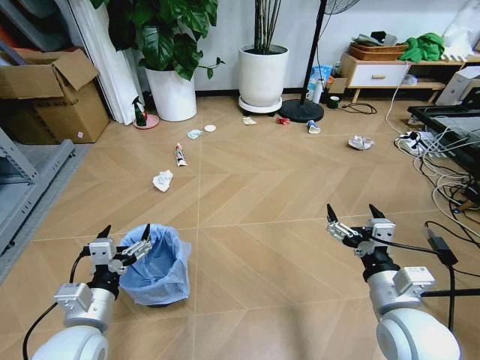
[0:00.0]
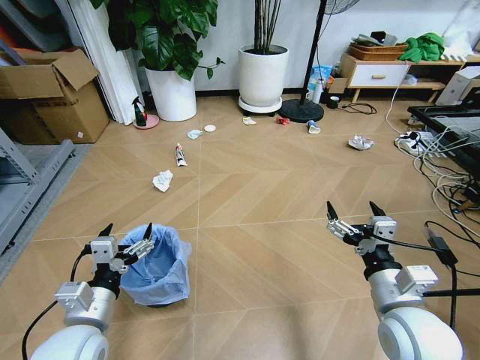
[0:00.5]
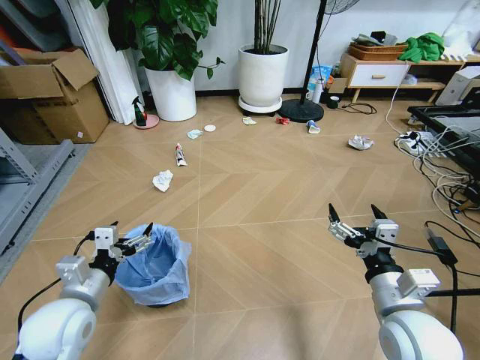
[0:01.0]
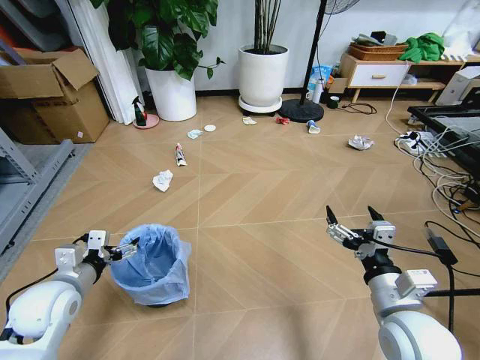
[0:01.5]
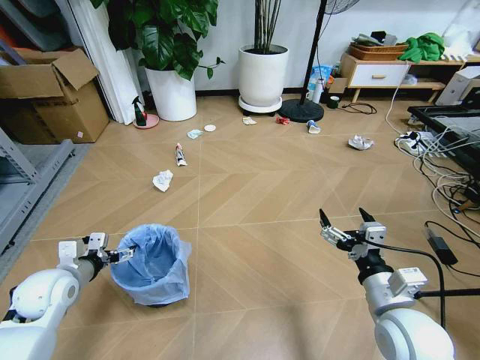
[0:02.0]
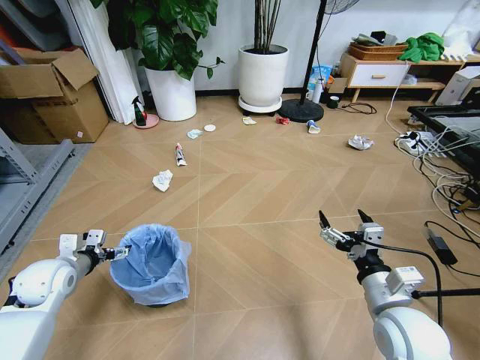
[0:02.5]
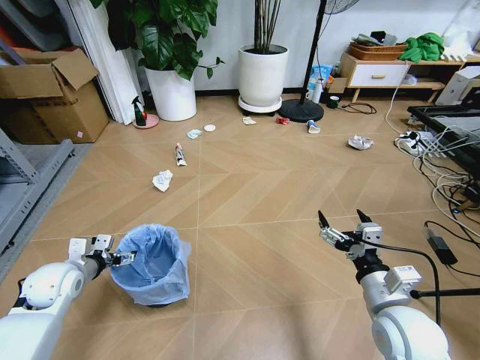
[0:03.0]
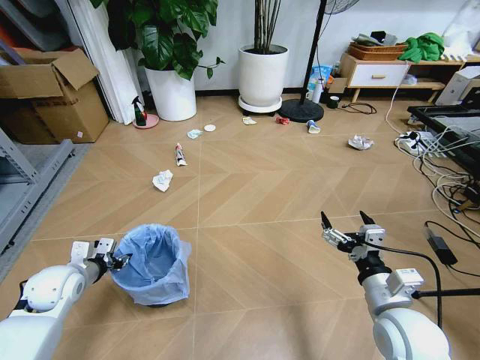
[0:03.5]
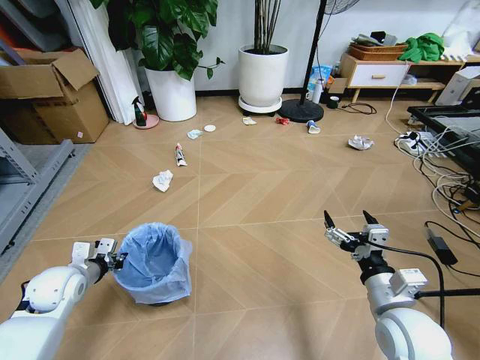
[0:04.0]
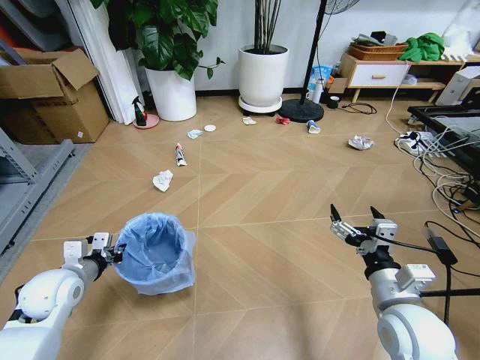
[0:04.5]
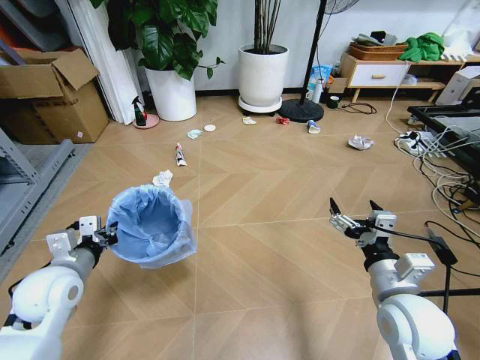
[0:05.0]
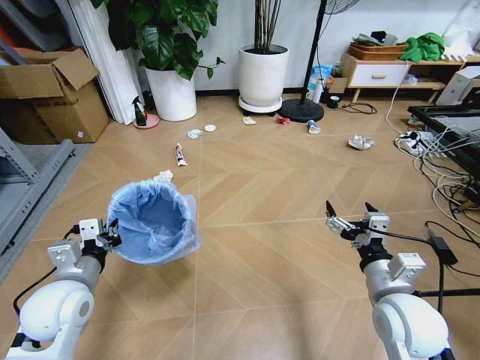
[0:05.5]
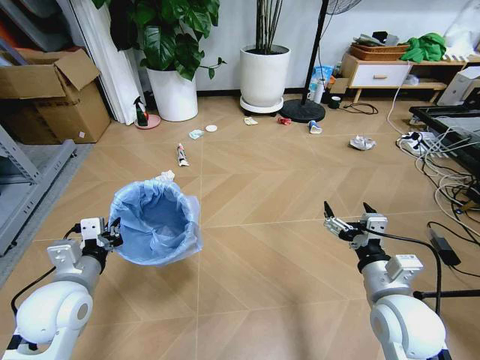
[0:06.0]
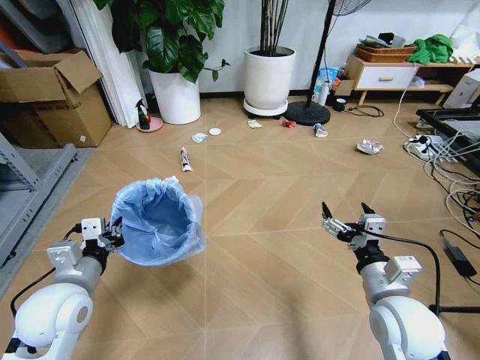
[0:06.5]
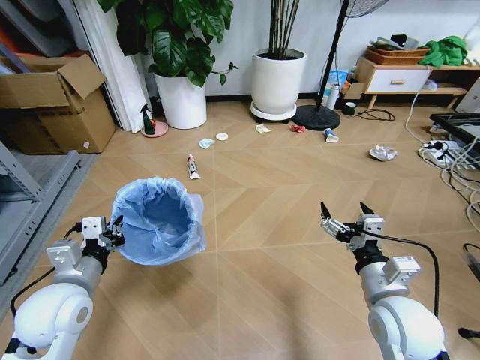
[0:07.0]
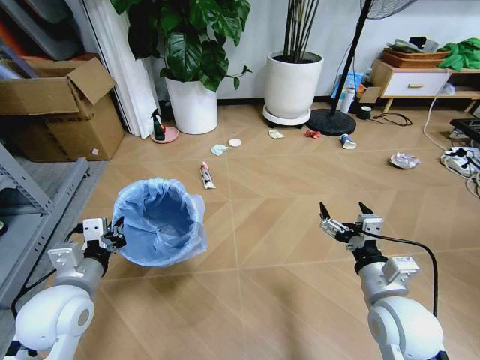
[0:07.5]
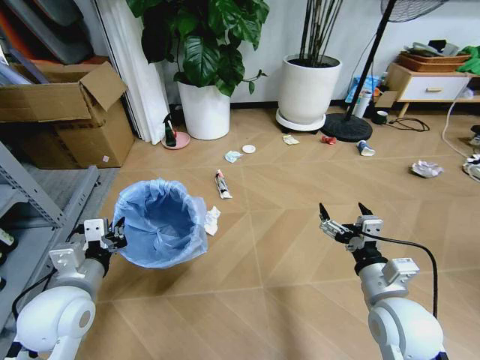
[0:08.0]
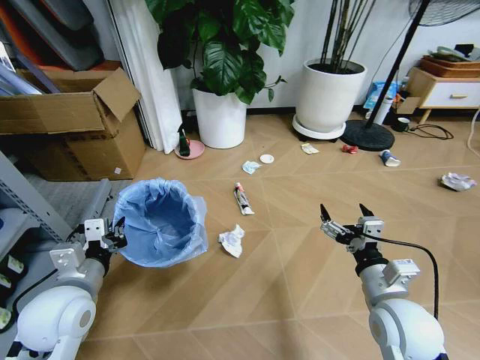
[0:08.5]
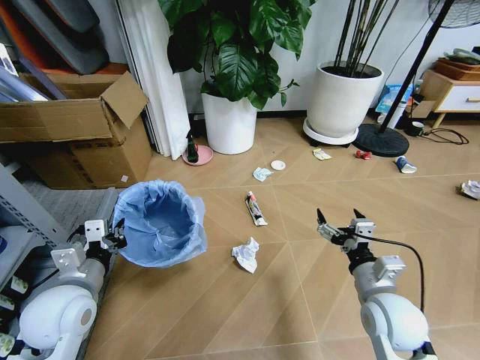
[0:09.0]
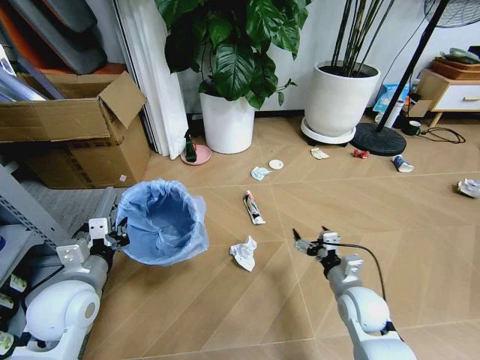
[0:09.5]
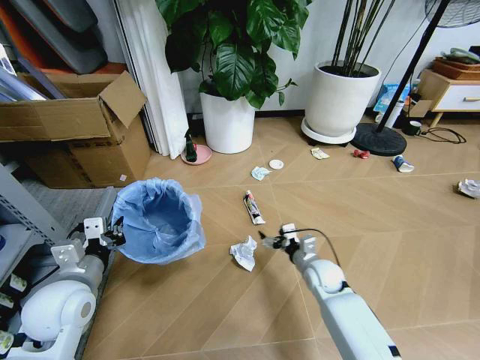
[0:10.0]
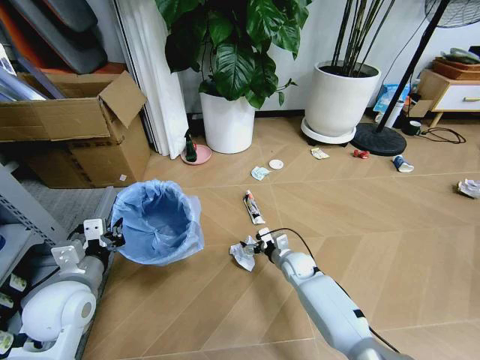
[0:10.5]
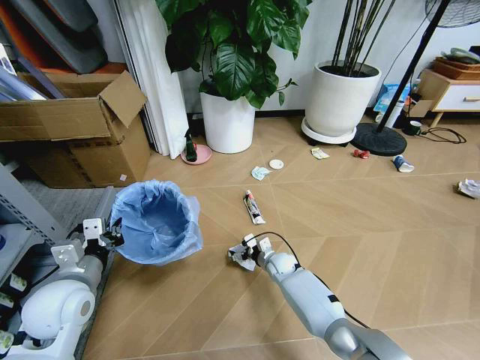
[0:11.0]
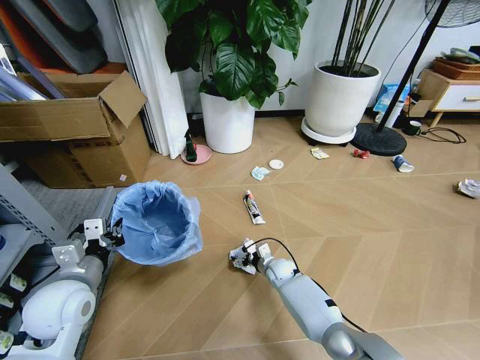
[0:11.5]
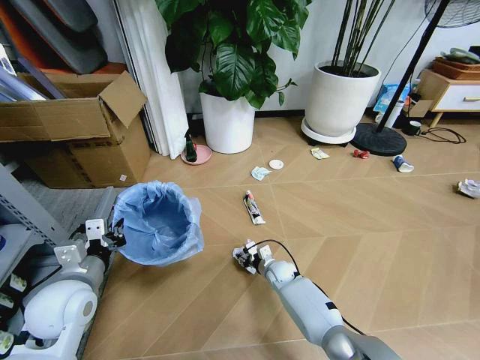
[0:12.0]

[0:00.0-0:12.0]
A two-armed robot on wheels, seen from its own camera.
Task of the whole recording: Pick up the trash bin and place the garbage on the floor into it.
2.0 to 4.0 s: The left gripper closes.
4.0 to 6.0 s: The left gripper moves to the right, upward and backward, roughly 15 cm.
8.0 to 10.0 s: The right gripper travels downward and forward by some 25 cm.
10.0 to 12.0 s: The right gripper shifts some 15 cm downward, to the left and forward, and closes up.

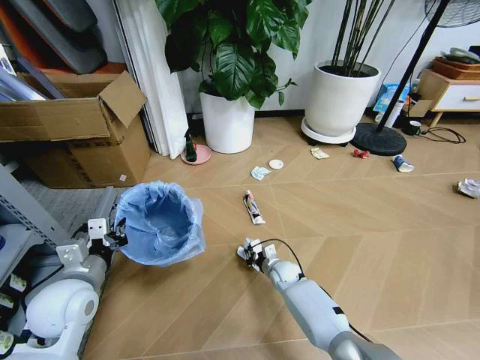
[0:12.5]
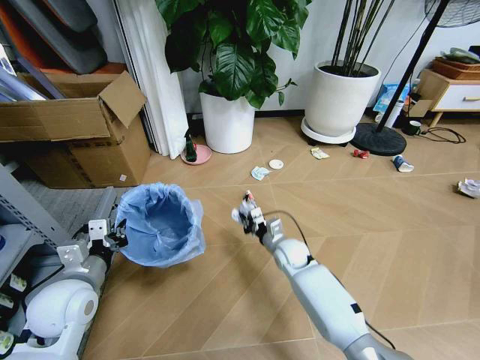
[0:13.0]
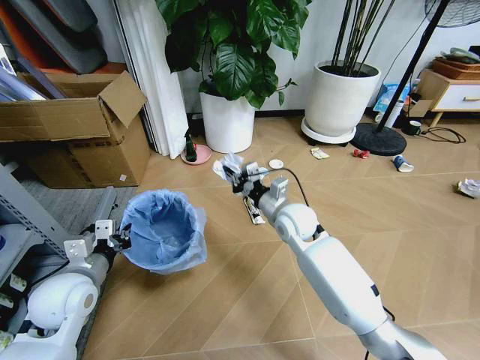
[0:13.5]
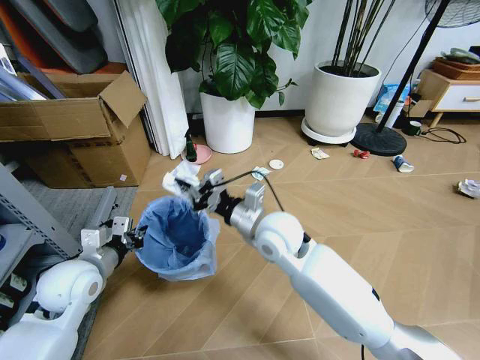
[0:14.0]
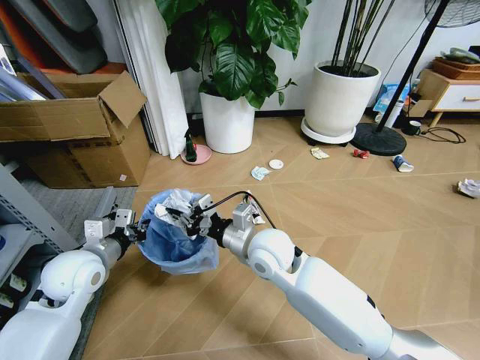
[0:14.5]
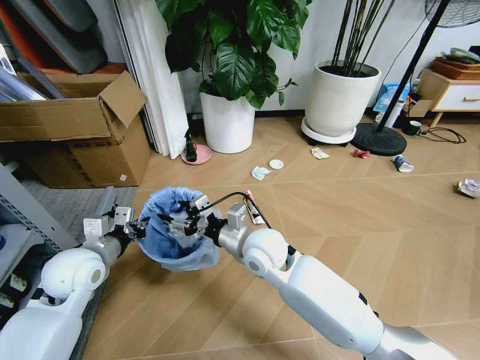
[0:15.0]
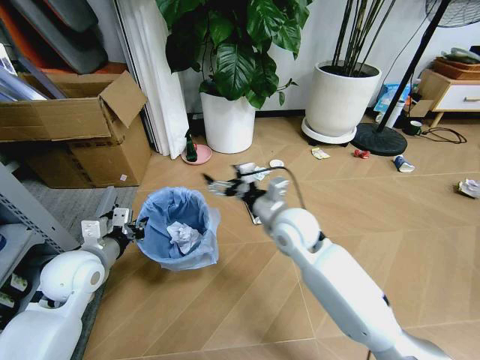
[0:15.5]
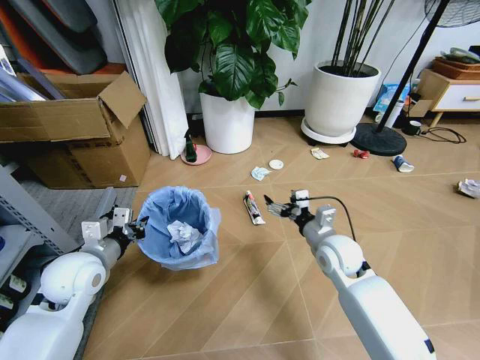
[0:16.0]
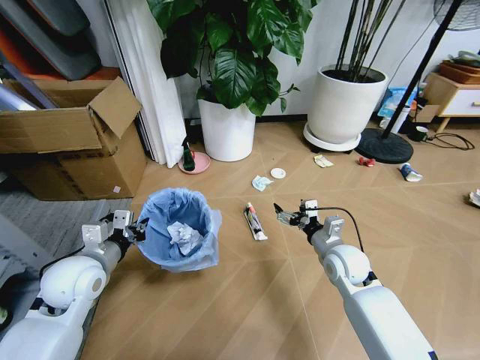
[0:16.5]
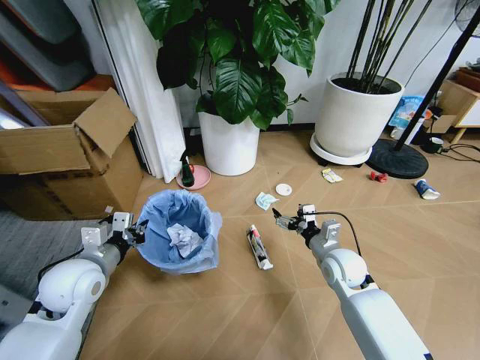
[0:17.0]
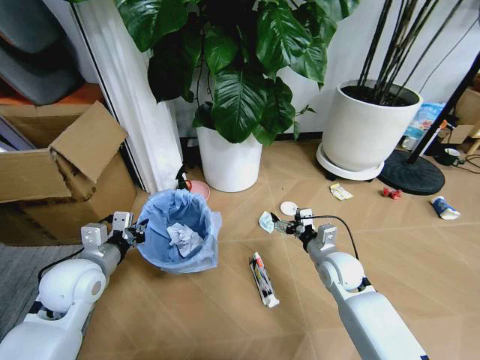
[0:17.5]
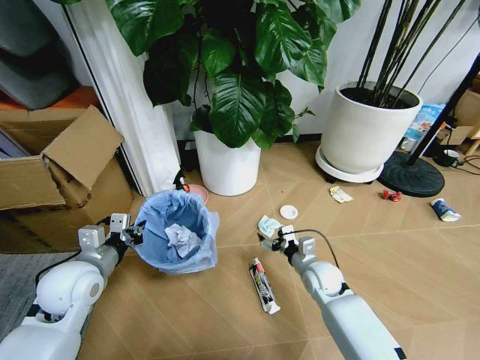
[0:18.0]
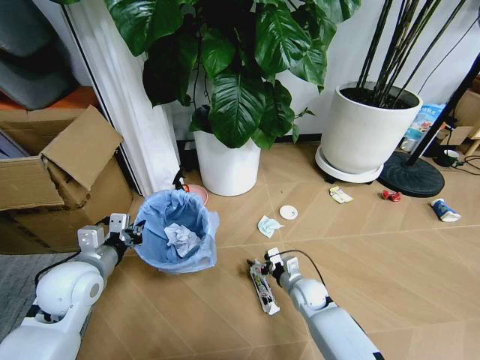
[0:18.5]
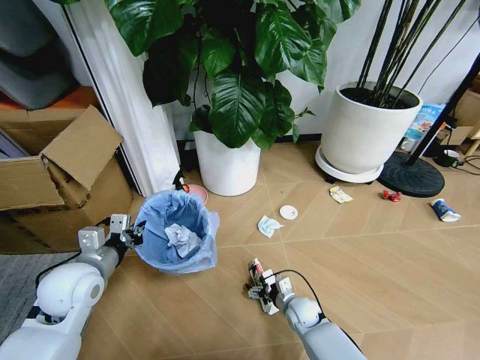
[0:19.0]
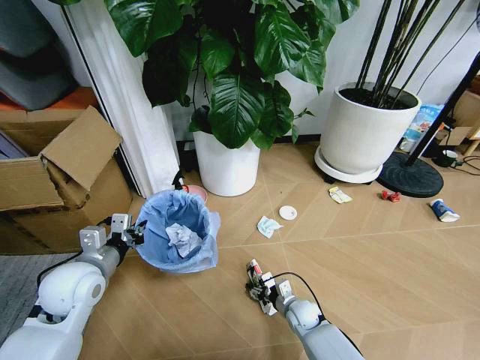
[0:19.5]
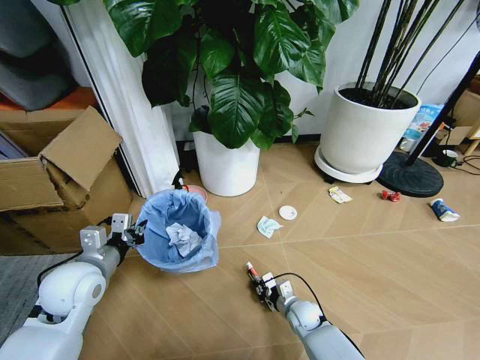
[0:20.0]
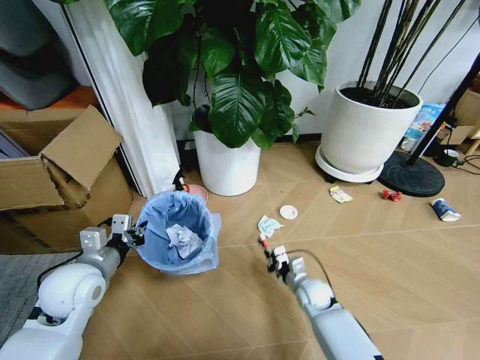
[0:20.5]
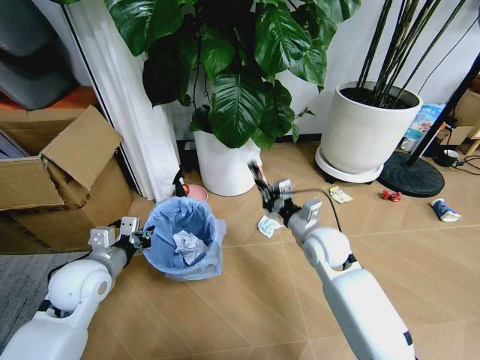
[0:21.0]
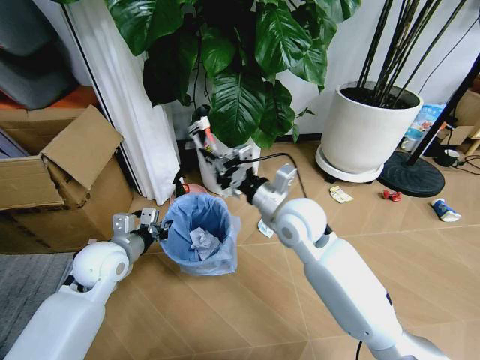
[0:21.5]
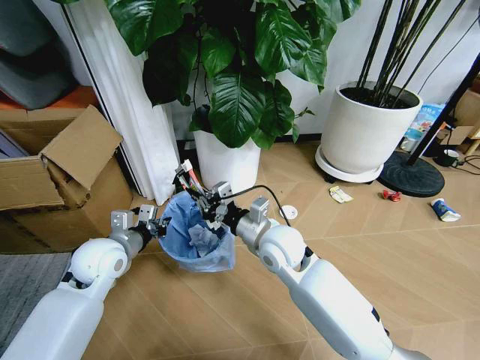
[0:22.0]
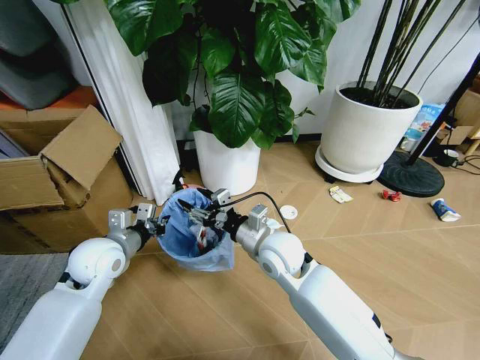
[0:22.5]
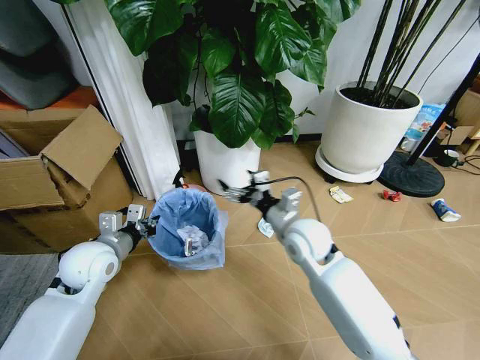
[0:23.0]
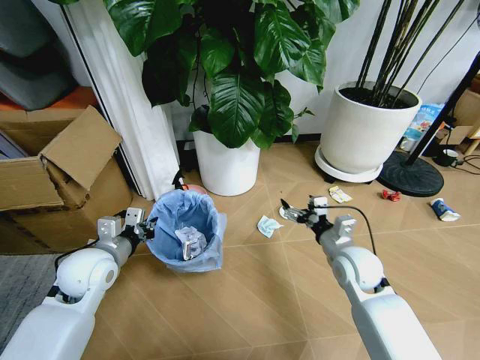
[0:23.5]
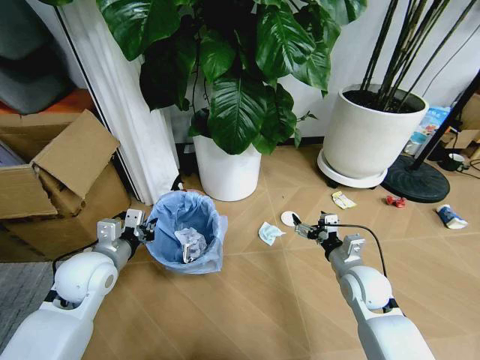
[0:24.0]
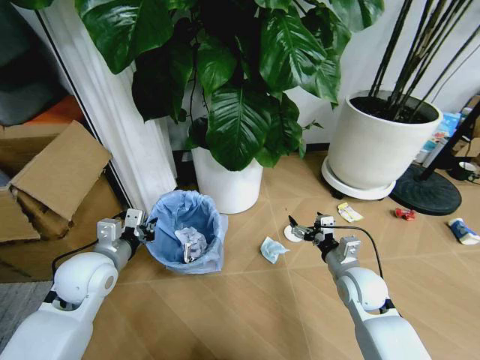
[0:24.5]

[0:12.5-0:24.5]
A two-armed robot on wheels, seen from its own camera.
Task of the whole recording: Pick up the trash bin and place the garbage on the floor into it.
12.5 to 14.5 s: The right gripper goes some 30 cm upward, while the left gripper shifts roughly 5 cm forward.
14.5 to 16.5 s: The right gripper moves to the right and downward, about 20 cm, and opens up.
16.5 to 18.5 s: The right gripper goes roughly 15 cm downward.
18.5 to 20.5 s: The right gripper closes.
20.5 to 22.5 s: The right gripper moves upward and to the left, some 25 cm, and opens up; the left gripper shifts approximately 5 cm forward.
22.5 to 24.5 s: The right gripper shifts some 20 cm to the right and downward, and opens up.

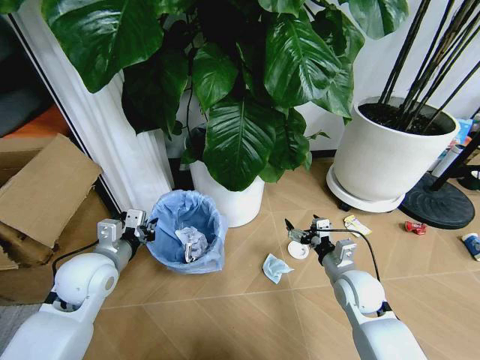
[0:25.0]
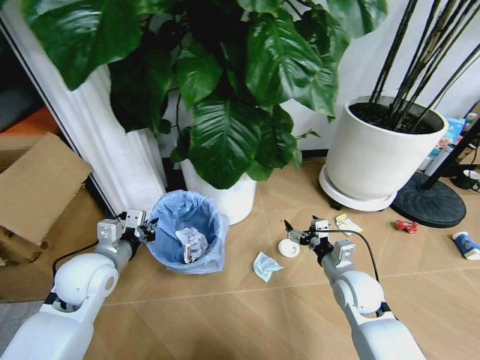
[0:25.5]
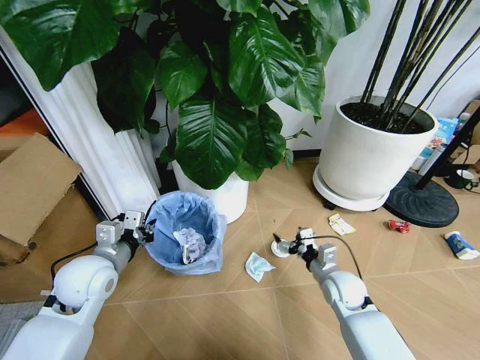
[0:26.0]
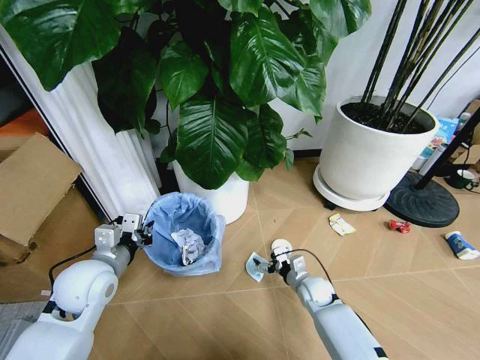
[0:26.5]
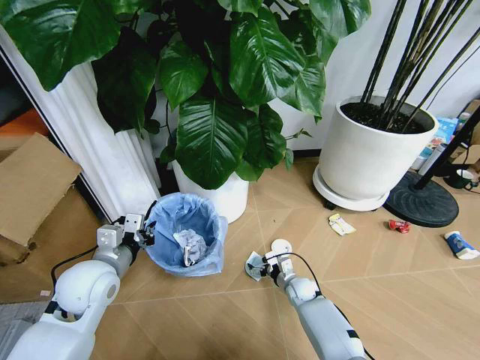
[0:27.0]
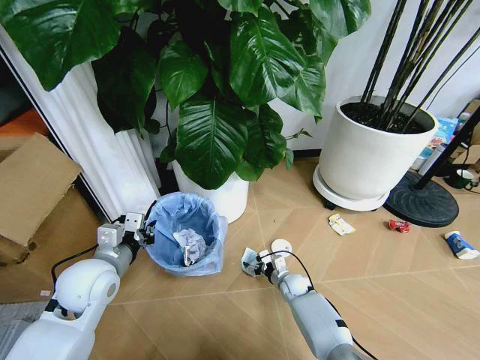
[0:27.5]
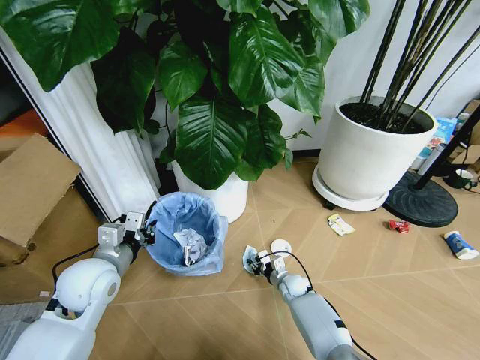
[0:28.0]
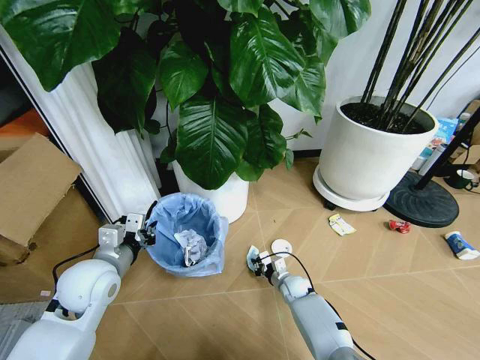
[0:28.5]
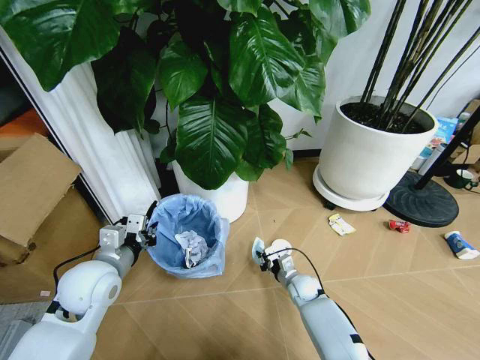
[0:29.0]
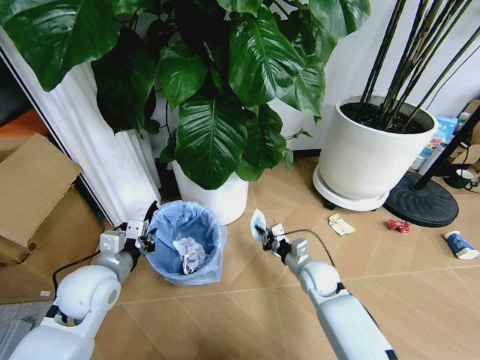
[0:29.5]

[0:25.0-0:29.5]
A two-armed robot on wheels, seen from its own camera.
Task of the whole recording: Pick up the trash bin and place the garbage on the floor into it.
25.0 to 27.0 s: The right gripper travels downward by roughly 20 cm.
27.0 to 29.5 s: The right gripper goes approximately 10 cm upward, and closes its fingers.
